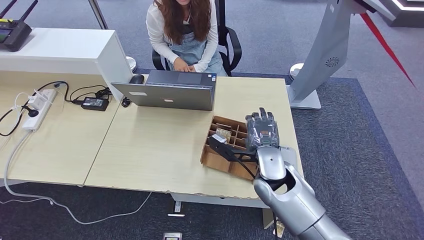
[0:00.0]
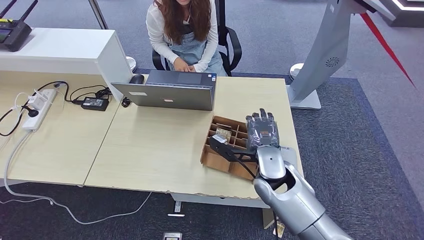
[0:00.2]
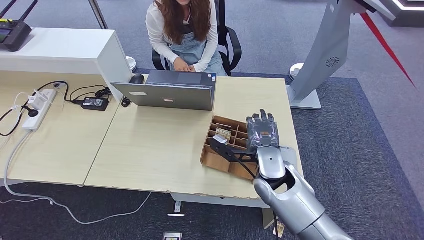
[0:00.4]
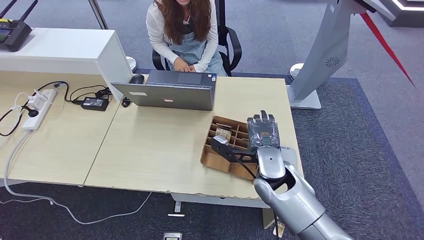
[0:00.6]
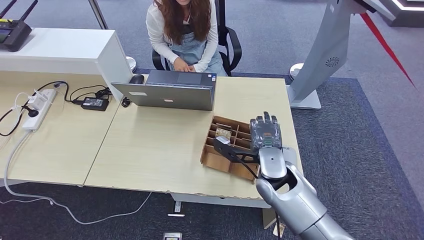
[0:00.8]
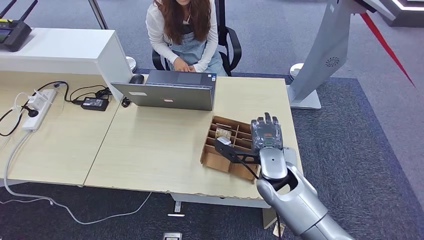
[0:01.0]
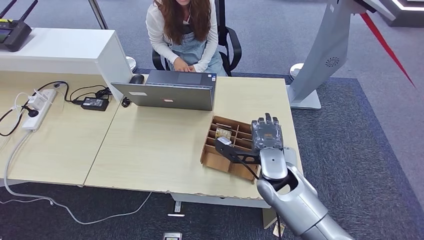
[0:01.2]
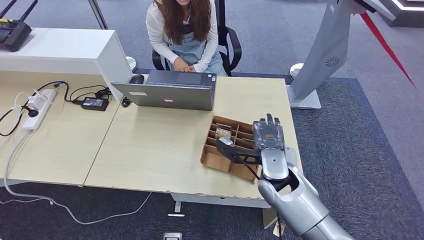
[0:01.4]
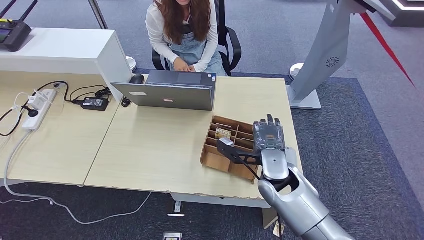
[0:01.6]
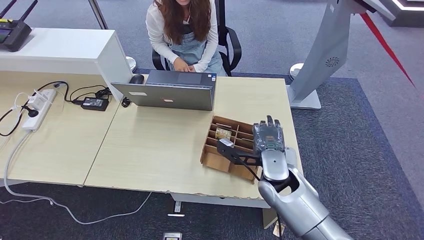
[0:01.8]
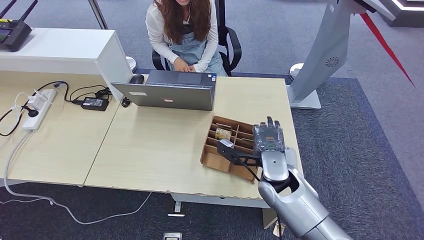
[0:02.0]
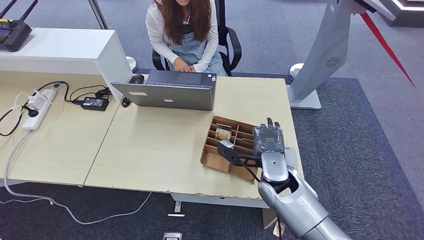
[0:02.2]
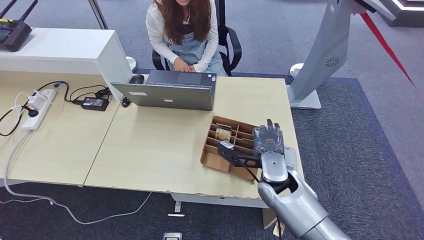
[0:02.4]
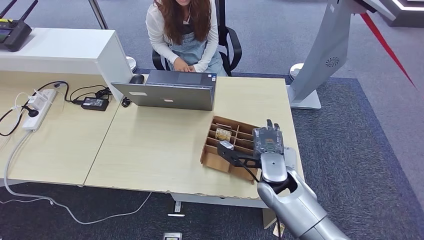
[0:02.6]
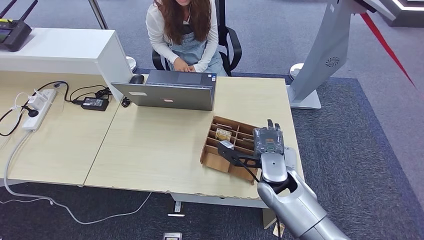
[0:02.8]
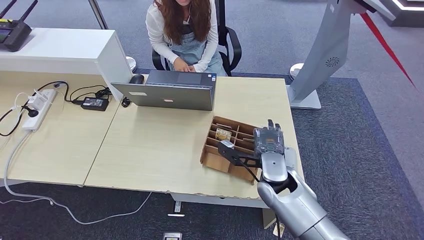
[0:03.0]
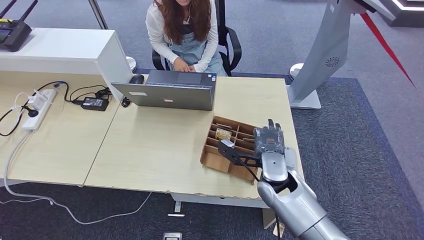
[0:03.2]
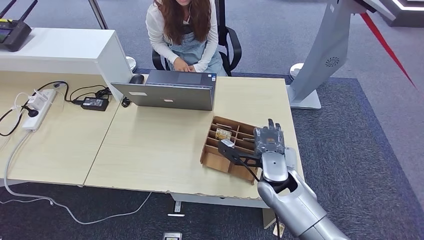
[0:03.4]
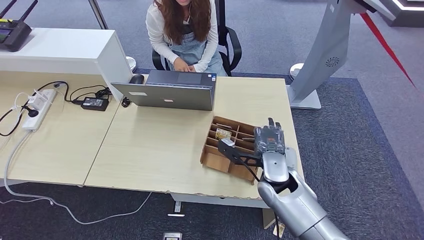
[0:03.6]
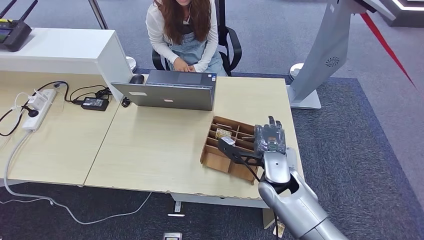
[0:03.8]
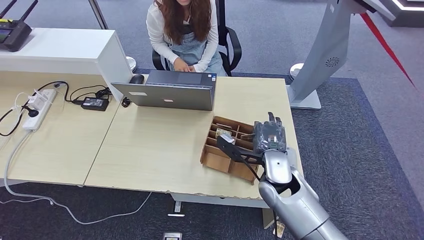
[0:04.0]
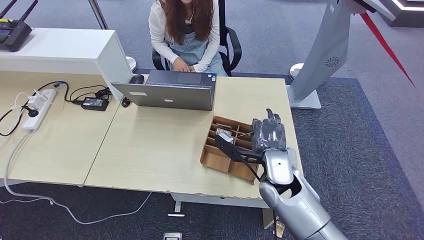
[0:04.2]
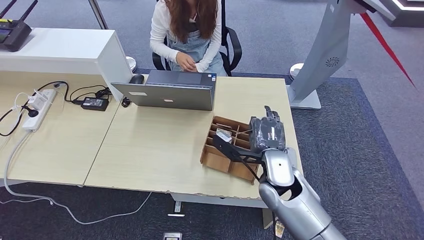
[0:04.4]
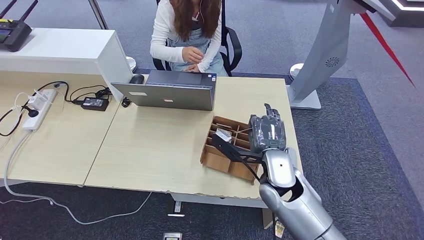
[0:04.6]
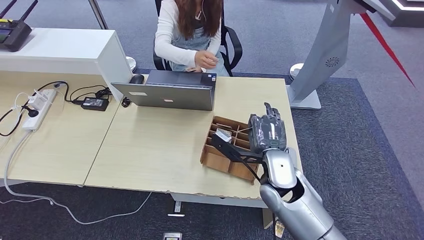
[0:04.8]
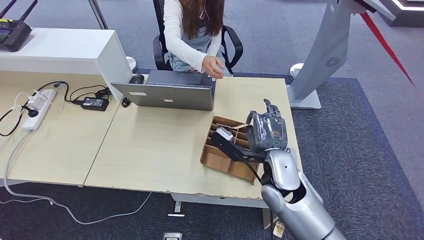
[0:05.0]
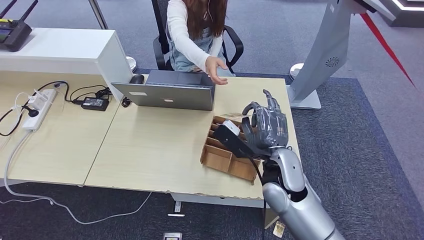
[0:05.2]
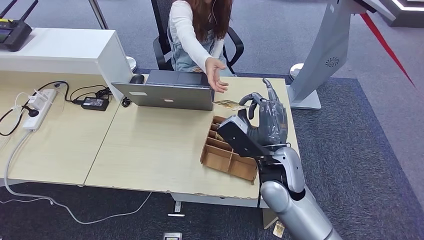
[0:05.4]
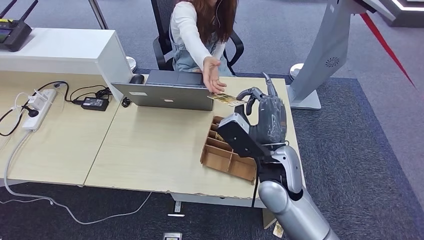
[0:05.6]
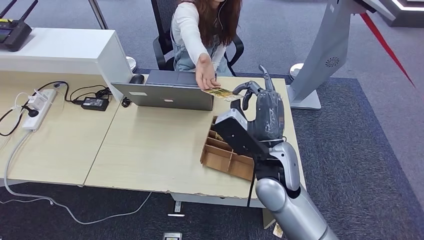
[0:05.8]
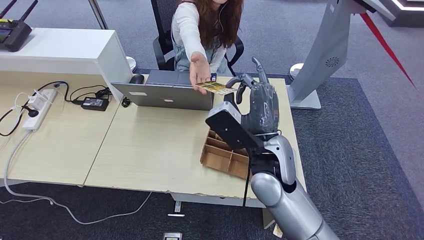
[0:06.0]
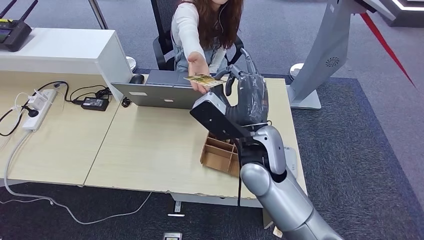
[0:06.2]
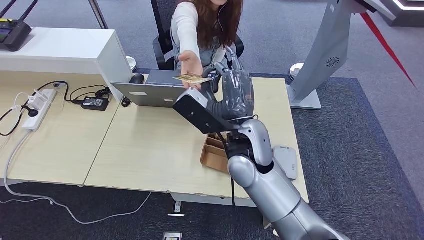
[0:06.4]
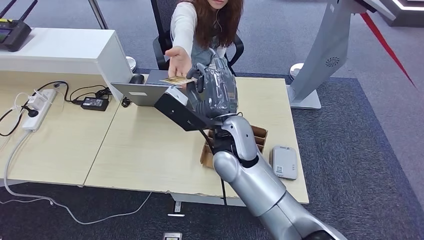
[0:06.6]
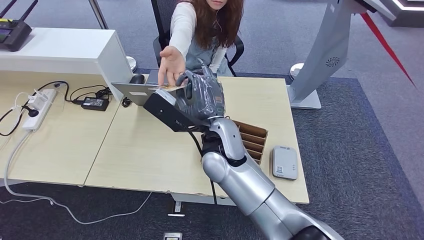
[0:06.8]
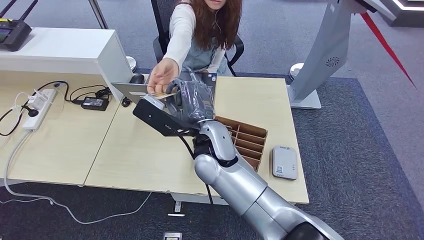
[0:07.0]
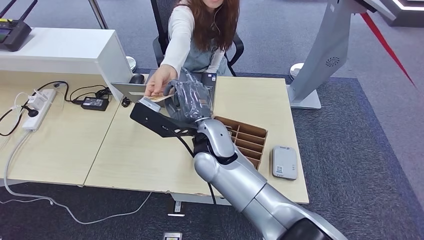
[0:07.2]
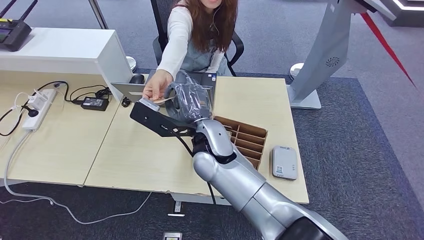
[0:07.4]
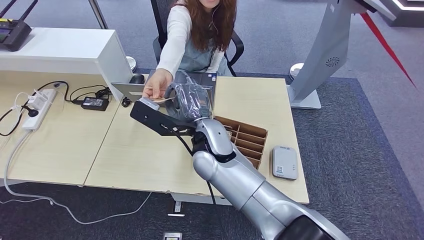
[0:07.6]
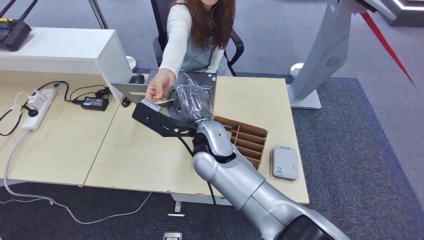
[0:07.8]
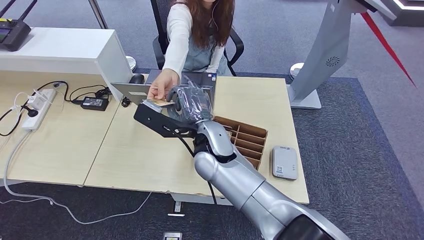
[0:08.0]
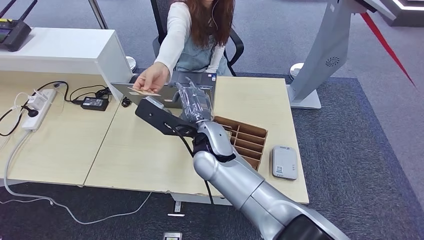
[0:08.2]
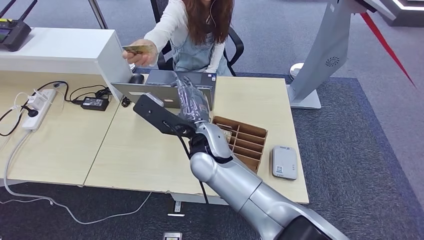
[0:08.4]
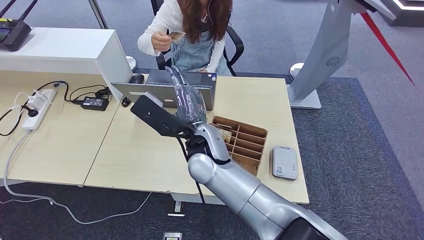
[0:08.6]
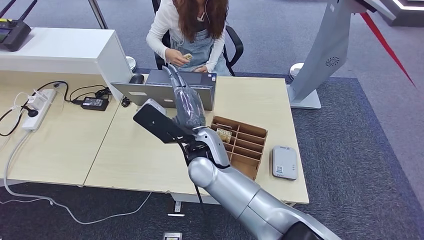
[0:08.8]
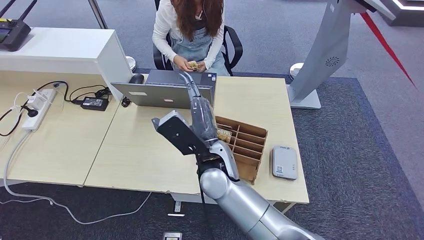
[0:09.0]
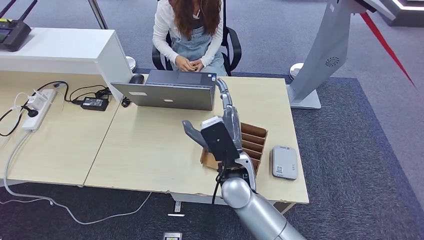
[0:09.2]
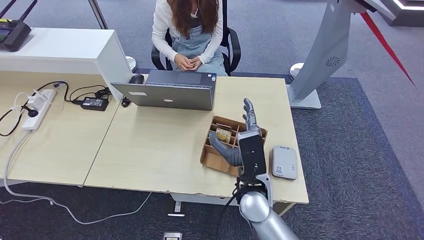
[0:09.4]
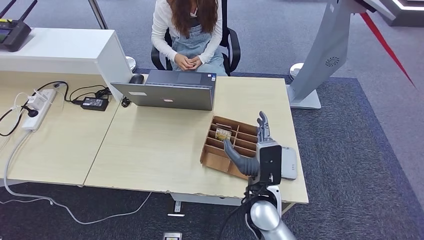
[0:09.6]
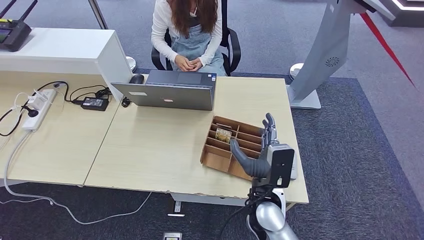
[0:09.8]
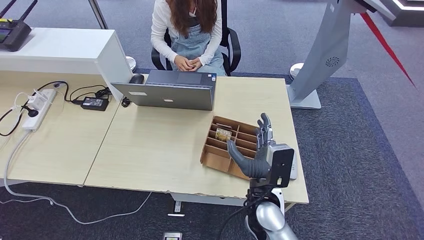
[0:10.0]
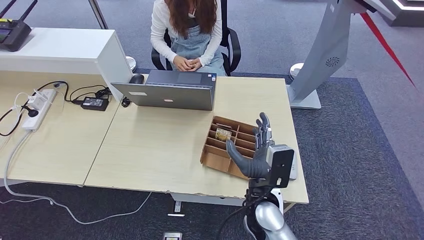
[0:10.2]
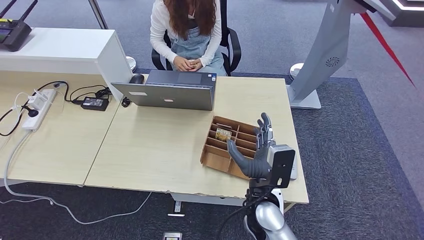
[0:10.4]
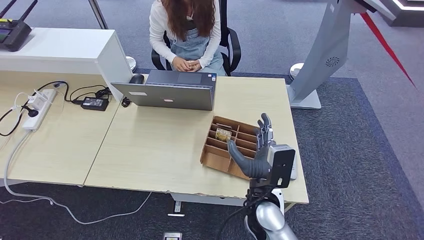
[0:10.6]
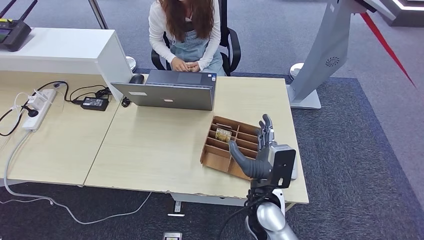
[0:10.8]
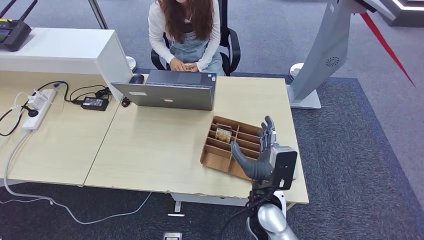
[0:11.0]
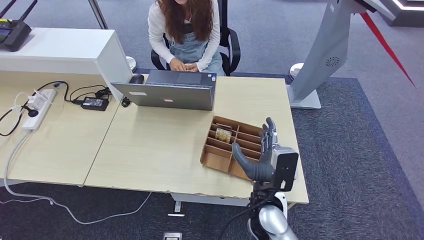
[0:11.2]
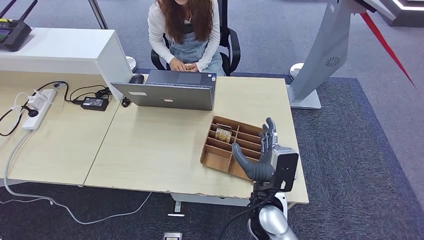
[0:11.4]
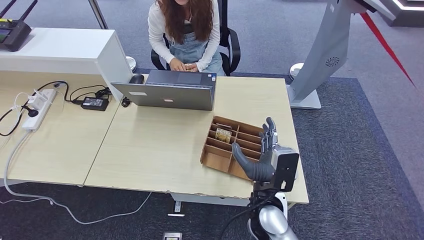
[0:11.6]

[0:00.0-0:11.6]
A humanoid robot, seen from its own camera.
Step, 0:00.0 to 0:04.6: Pick up the room key from the key card box.
Step, 0:05.0 to 0:11.6: Hand the room key to the person.
0:00.0 to 0:04.4: The hands make only small movements.
0:04.4 to 0:05.8: The right hand shifts roughly 10 cm upward.
0:05.8 to 0:07.2: The right hand moves to the left, approximately 10 cm.
0:07.2 to 0:08.8: There are only small adjustments of the hands.
0:08.8 to 0:10.2: The right hand shifts approximately 20 cm to the right, downward and backward.
0:10.2 to 0:11.6: Both hands stay about where they are.
